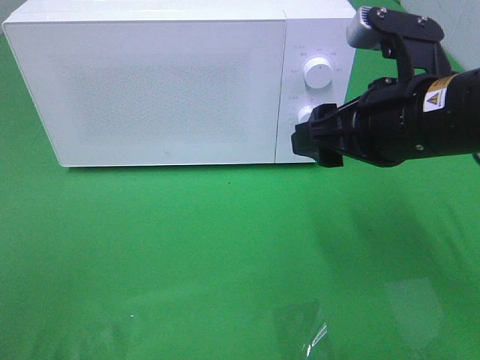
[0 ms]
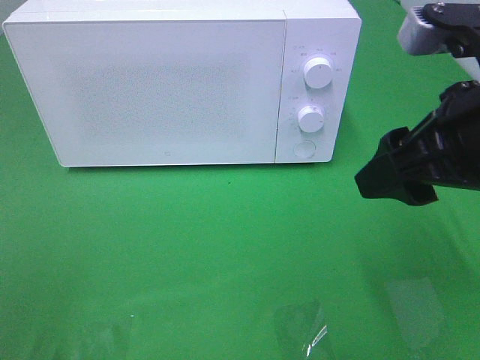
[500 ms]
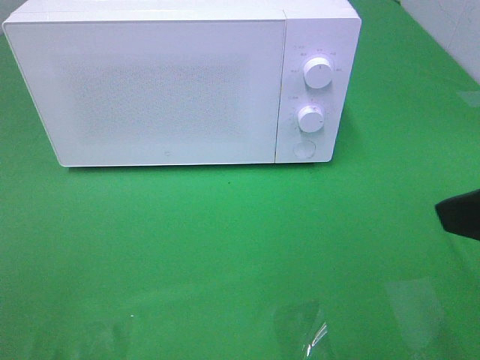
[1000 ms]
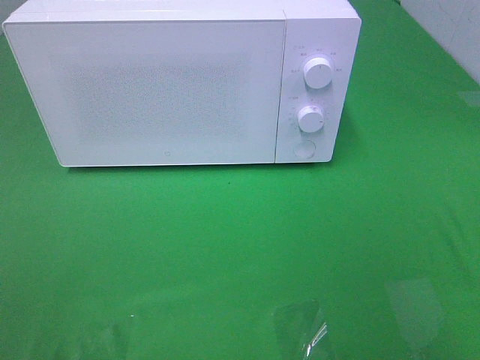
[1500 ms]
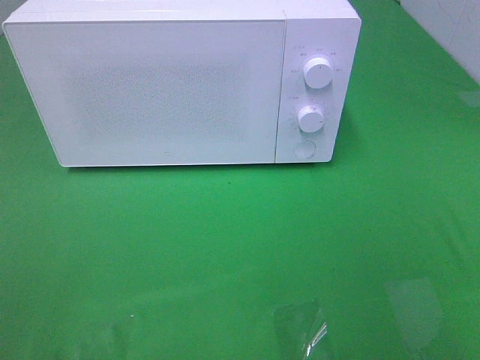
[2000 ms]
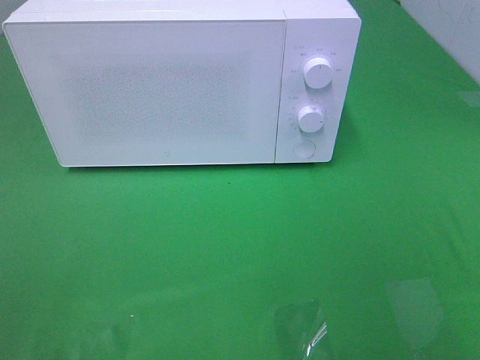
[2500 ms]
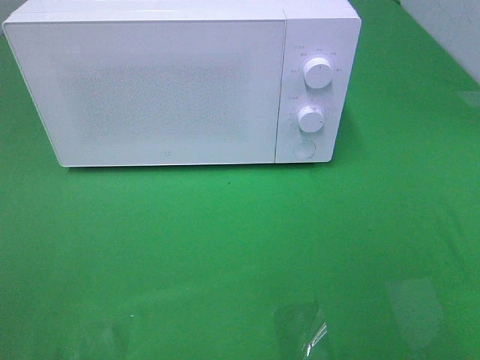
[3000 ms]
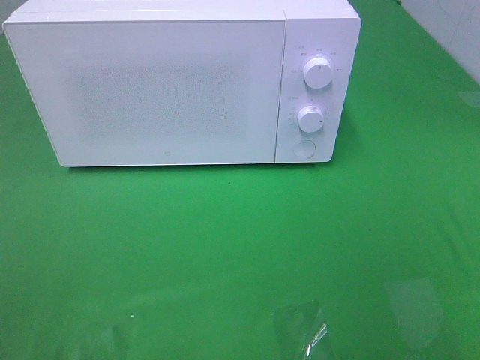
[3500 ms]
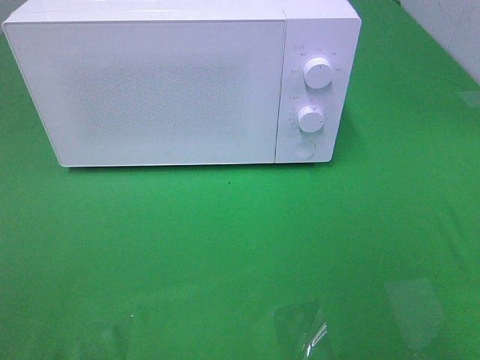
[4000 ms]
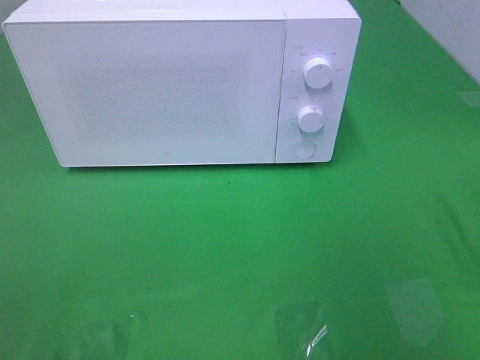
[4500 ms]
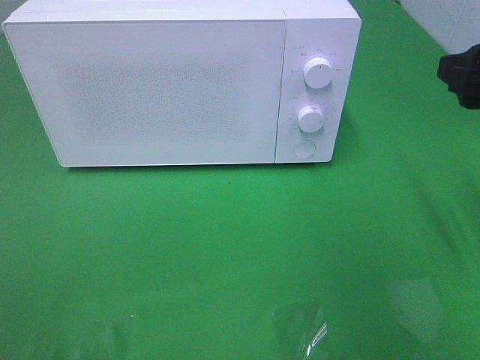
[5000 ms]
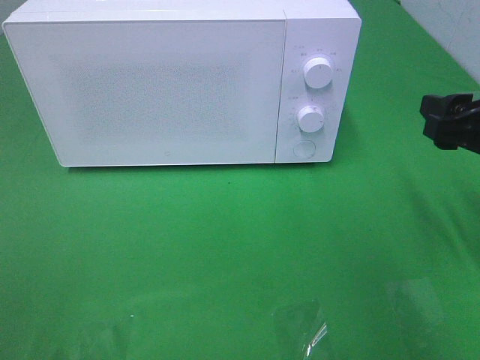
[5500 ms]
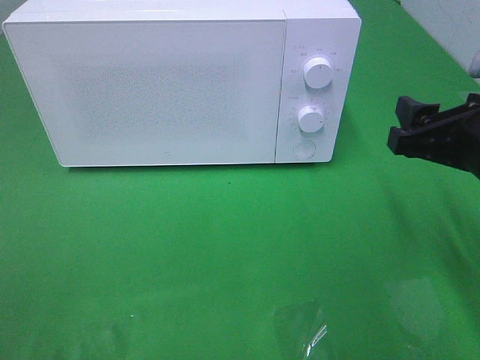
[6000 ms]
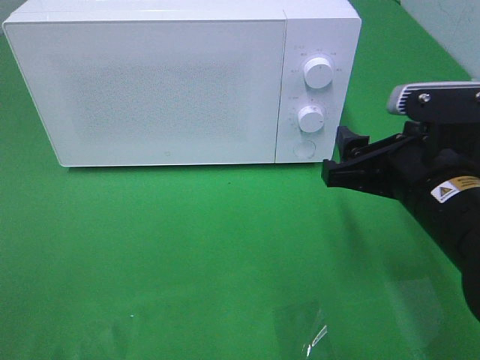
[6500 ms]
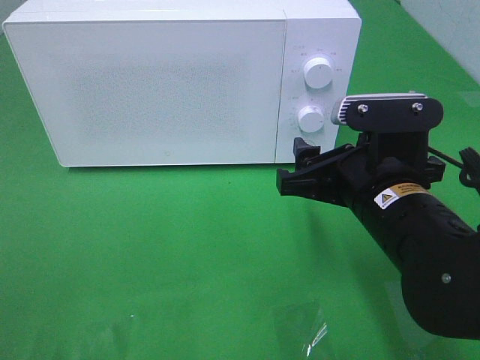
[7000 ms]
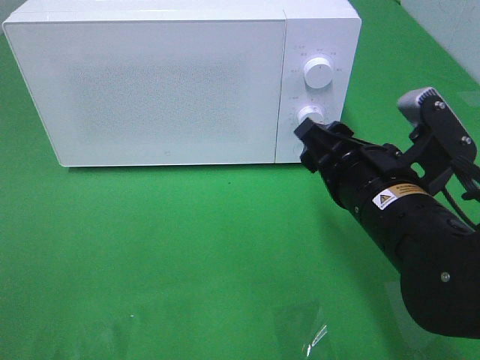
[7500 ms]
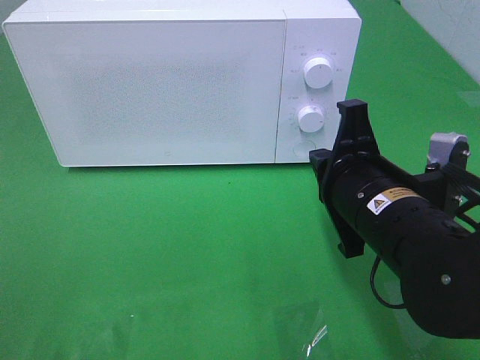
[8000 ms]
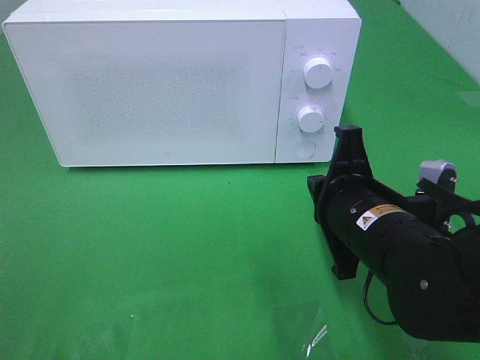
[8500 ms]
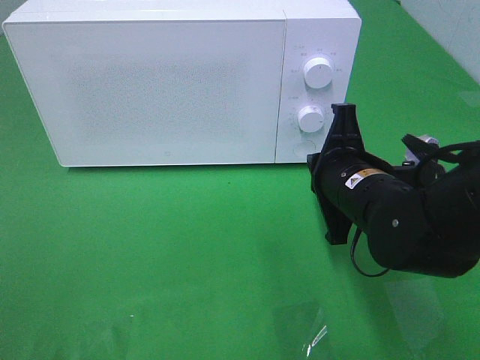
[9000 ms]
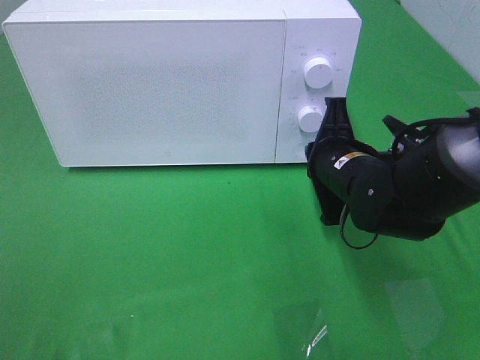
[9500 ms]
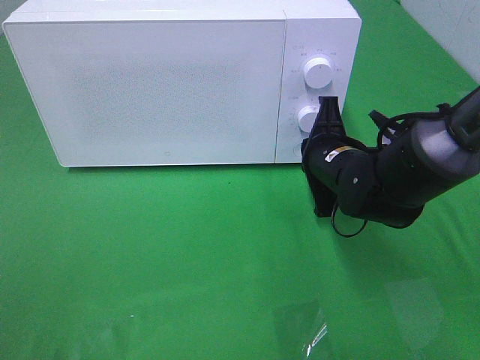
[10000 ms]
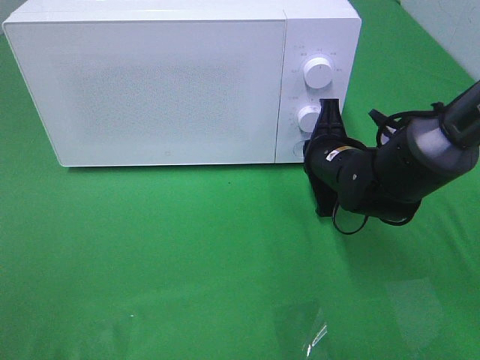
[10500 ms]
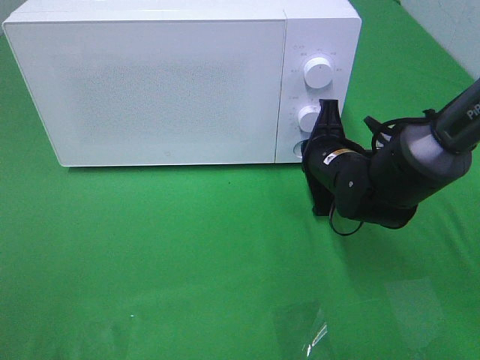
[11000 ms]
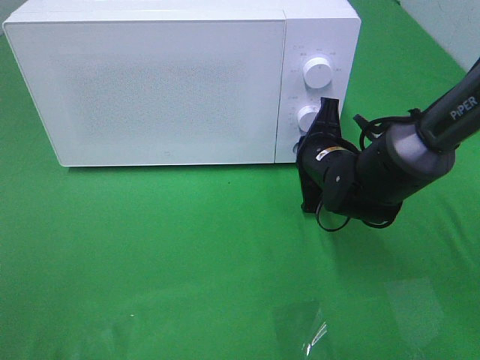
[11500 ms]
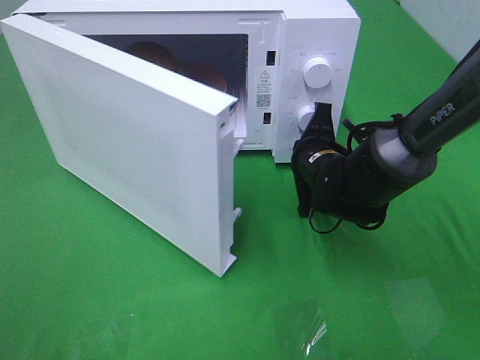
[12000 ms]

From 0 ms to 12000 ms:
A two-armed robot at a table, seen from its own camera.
Task of the whole recording: Heat the burger.
Step, from 0 ms to 11000 ms: Right hand: press the switch.
From 0 ms to 2000 ms: The right gripper travels backward and to the right by about 25 cm.
From 4000 ms to 6000 ms: The right gripper shifts roughly 20 cm forward, downward and to the left.
From 6000 ms to 8000 ms: The right gripper is displaced to the left by some 10 cm, and closes its fingers.
From 8000 ms to 10000 ms: The right gripper goes roughly 15 cm forward and downward.

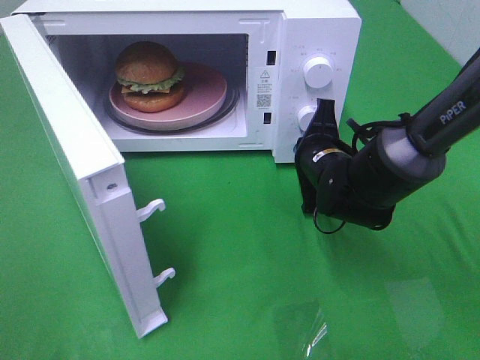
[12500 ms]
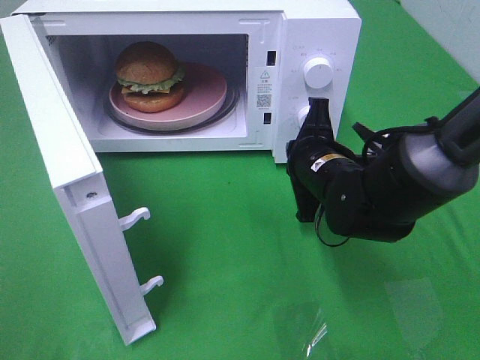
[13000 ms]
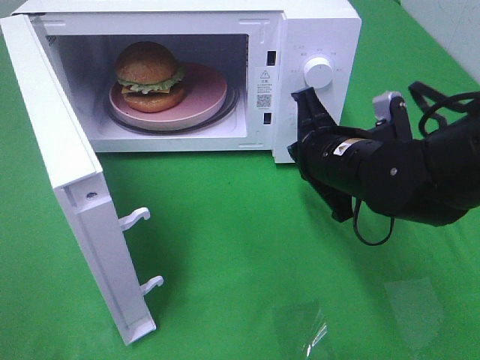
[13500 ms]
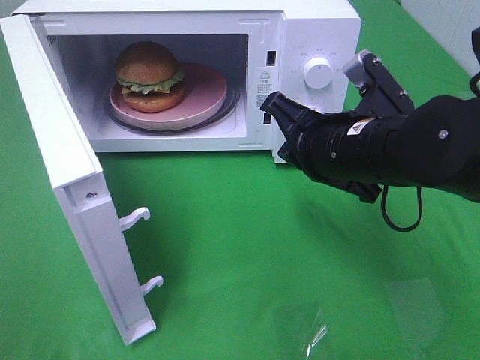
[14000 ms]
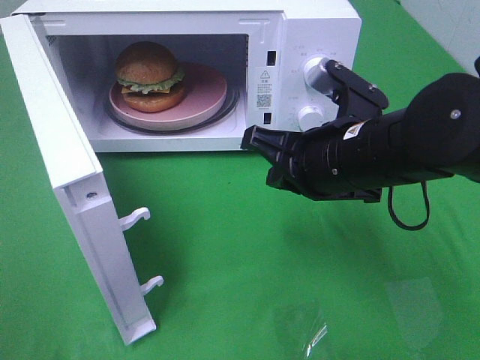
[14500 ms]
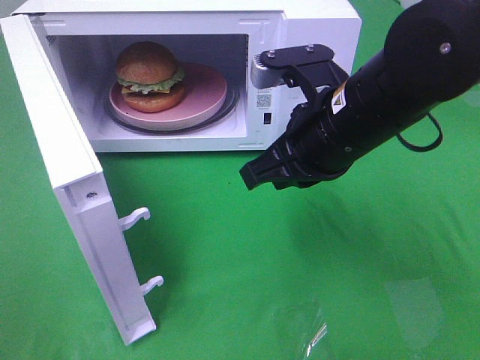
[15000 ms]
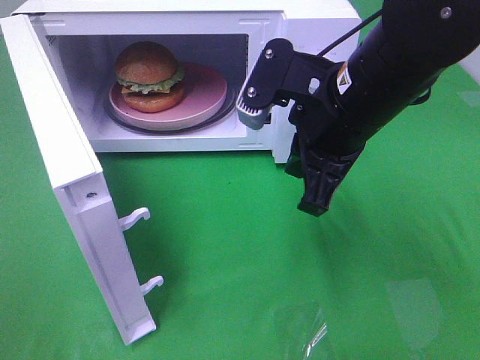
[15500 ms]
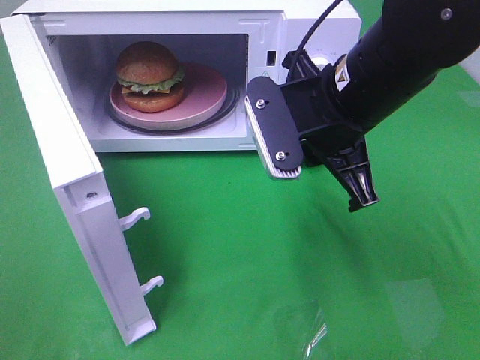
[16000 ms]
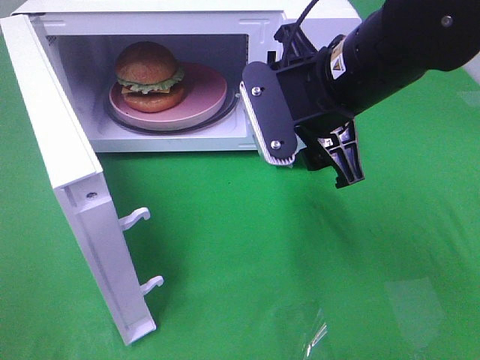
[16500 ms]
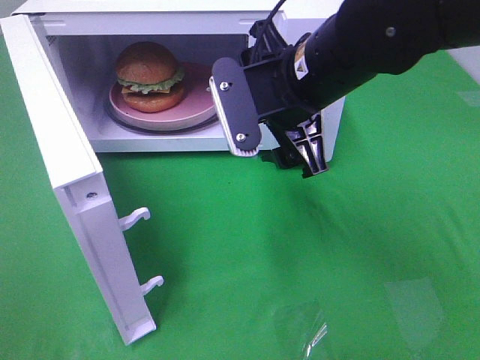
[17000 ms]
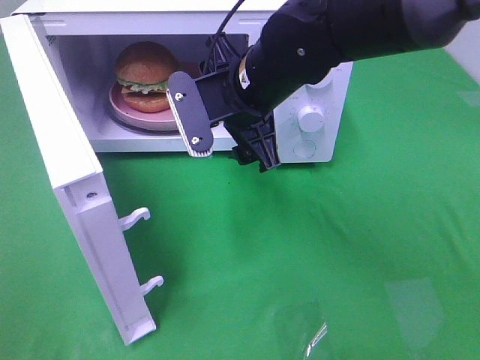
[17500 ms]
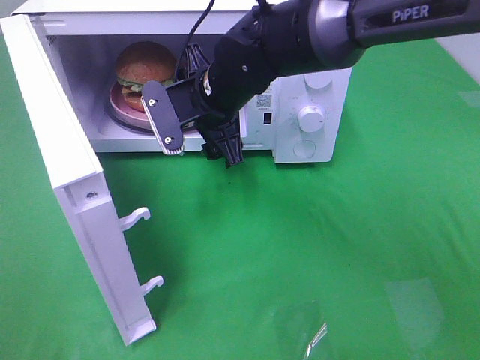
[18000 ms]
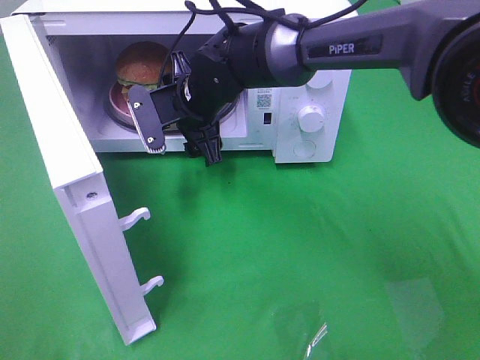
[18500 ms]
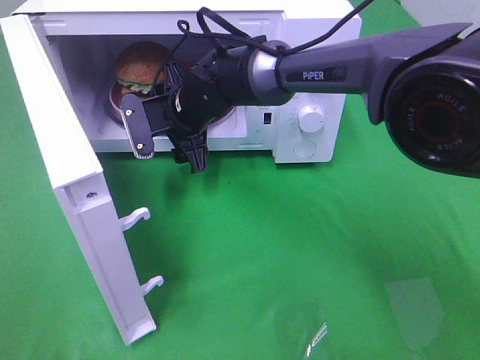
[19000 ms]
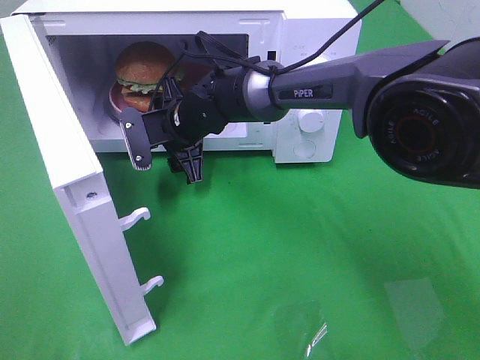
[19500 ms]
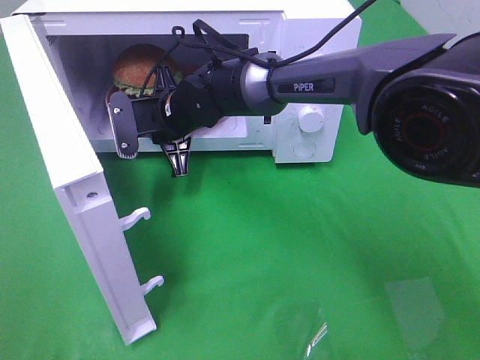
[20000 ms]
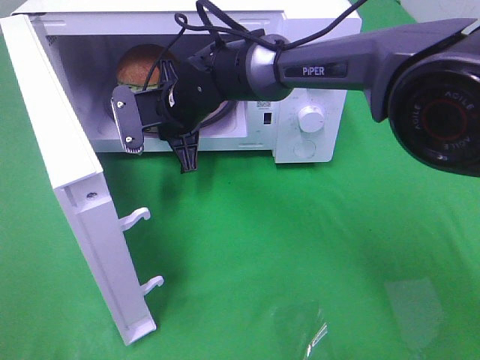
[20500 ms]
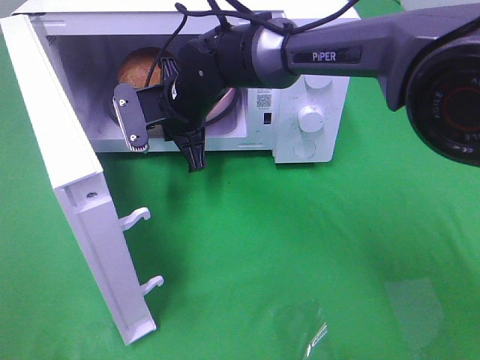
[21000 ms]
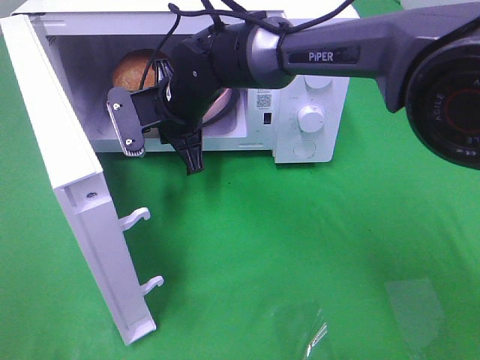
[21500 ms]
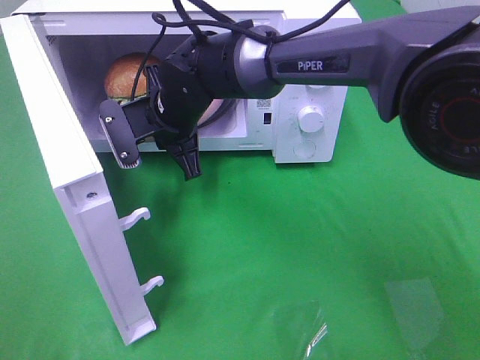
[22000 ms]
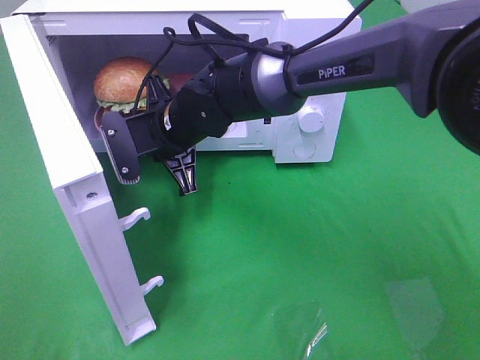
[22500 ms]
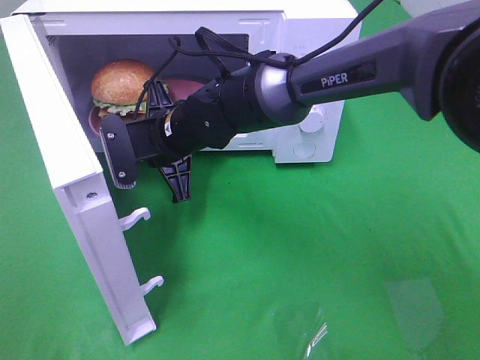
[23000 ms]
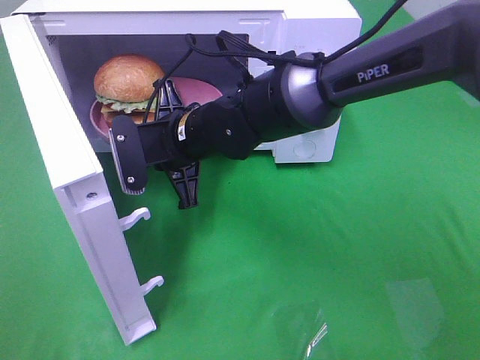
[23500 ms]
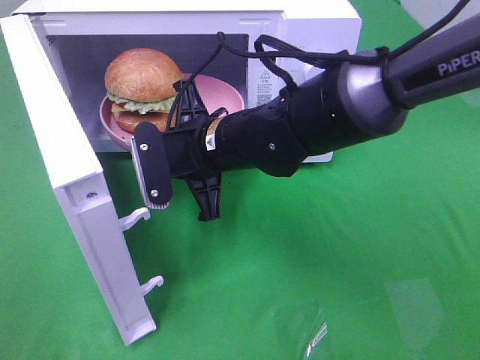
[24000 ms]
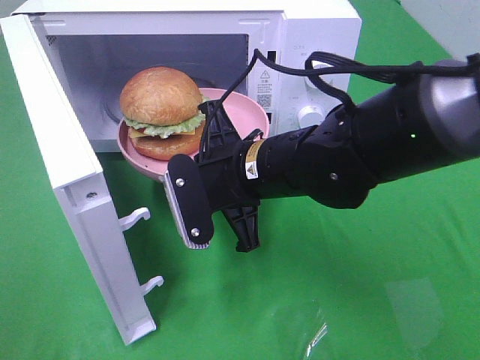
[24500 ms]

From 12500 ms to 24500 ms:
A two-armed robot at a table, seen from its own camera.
Task of the whole recording: Heat the burger.
Step, from 12500 ms to 20000 ms: Right hand: grab the plate with the hamburger.
From 12500 ms to 14500 ms: The right gripper shifts about 15 cm upward and backward.
From 14500 ms to 16500 ms: The right gripper shifts about 5 cm upward, and opens up.
From 16500 ms to 18500 ms: The right gripper moves to the left, forward and downward, roughly 20 cm.
From 18500 ms to 20500 ms: The right gripper closes up.
From 20500 ms to 22500 ms: The grippers move only a little.
From 22500 ms to 24500 ms: The right gripper shifts approximately 15 cm backward and to the right.

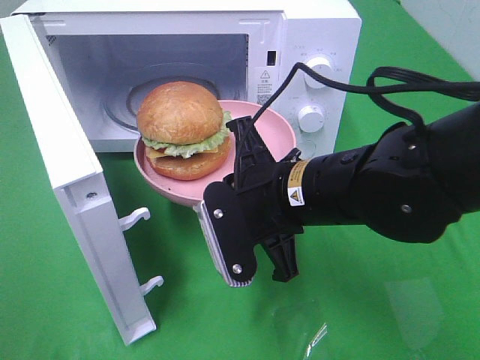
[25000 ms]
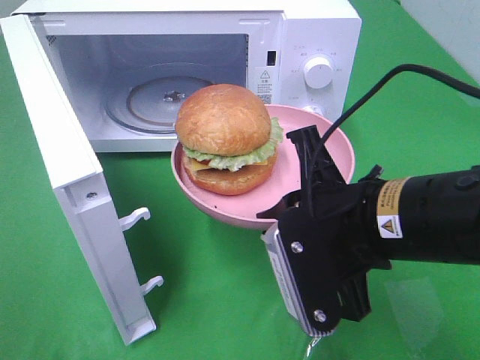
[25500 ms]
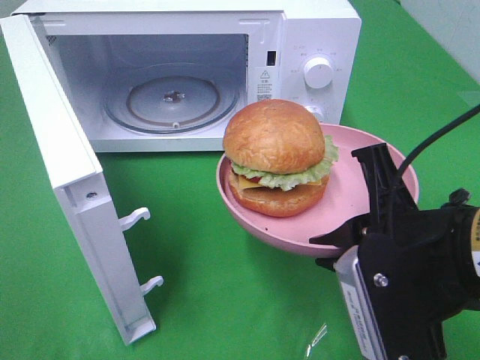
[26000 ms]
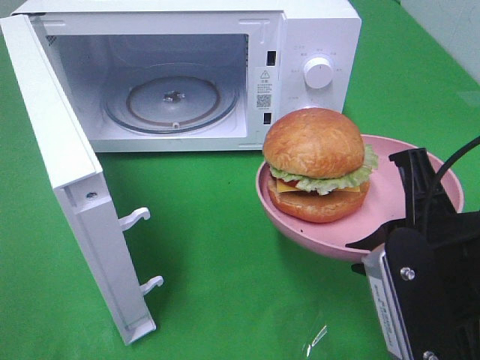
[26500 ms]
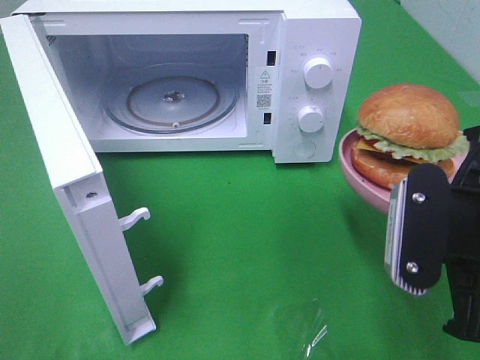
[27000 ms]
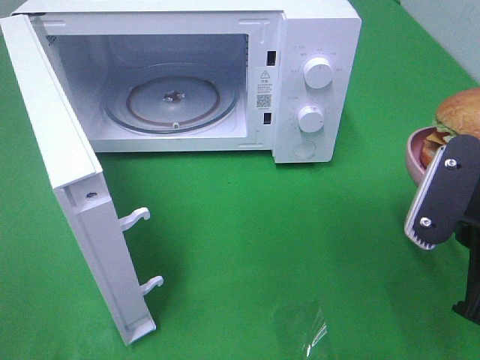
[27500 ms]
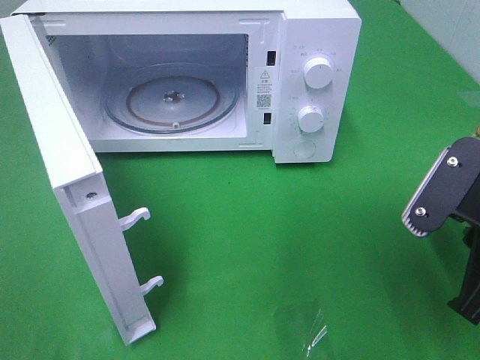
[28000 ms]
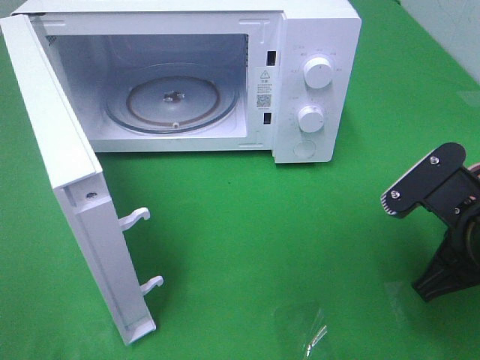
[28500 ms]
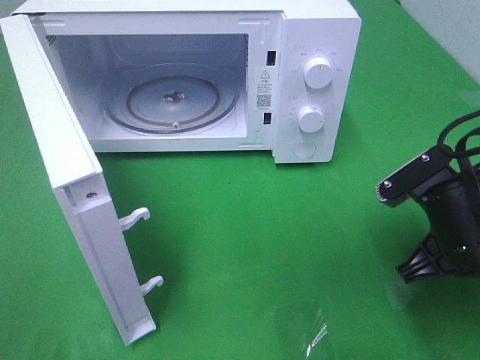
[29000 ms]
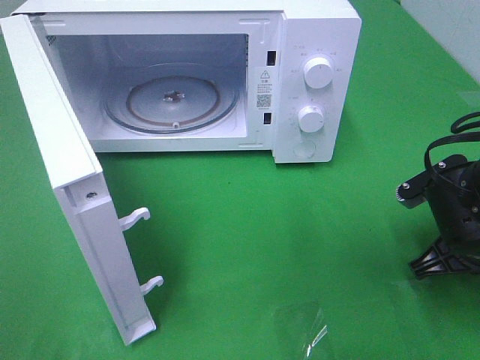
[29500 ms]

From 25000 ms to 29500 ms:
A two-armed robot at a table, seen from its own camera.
Task of the whole recording: Heat the burger.
From 25000 ms to 27000 ms: The right gripper goes some 15 cm to the right and backward.
From 27000 ms to 29500 ms: The right gripper goes approximately 15 cm downward and forward.
